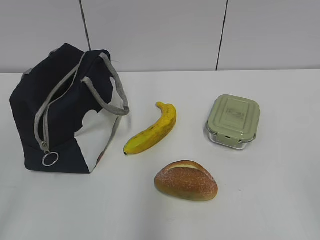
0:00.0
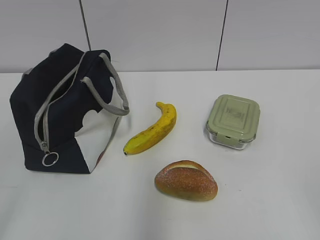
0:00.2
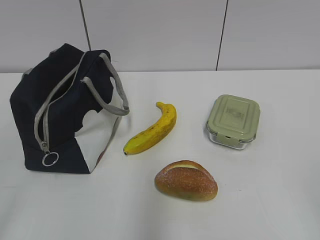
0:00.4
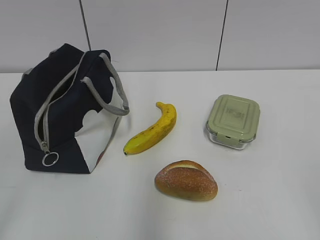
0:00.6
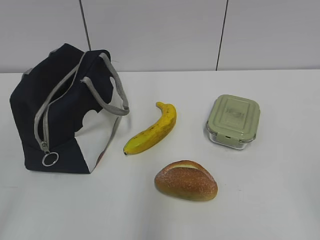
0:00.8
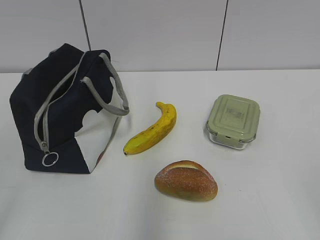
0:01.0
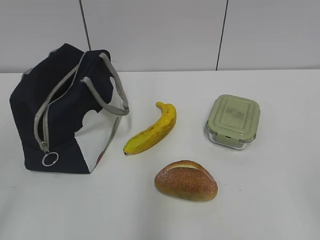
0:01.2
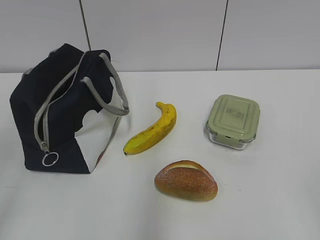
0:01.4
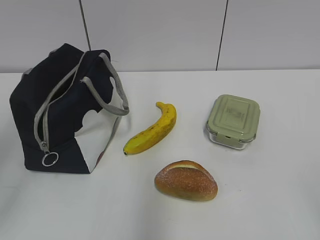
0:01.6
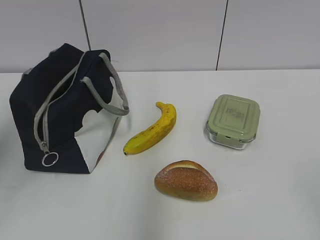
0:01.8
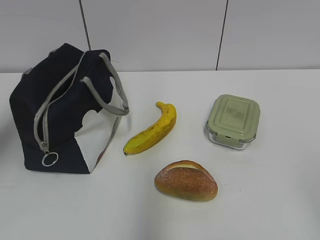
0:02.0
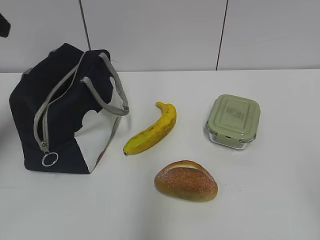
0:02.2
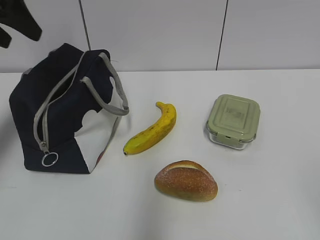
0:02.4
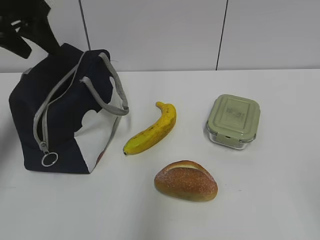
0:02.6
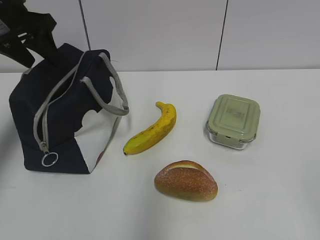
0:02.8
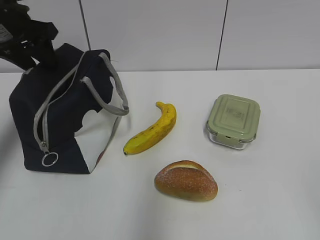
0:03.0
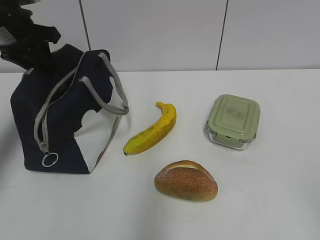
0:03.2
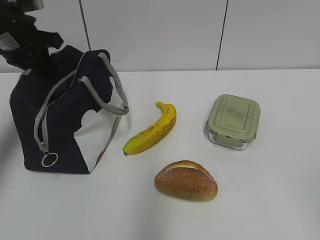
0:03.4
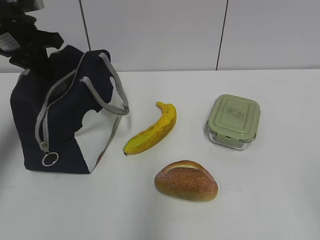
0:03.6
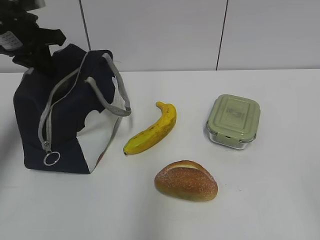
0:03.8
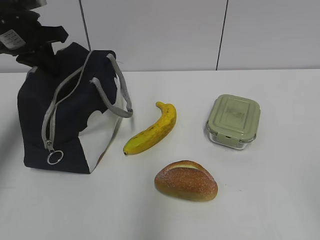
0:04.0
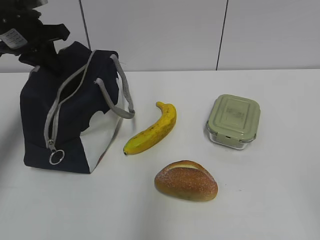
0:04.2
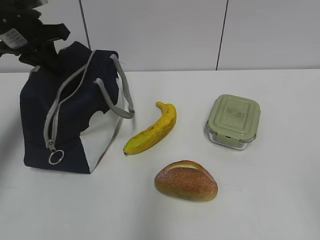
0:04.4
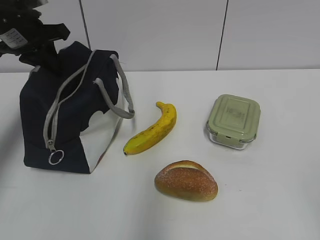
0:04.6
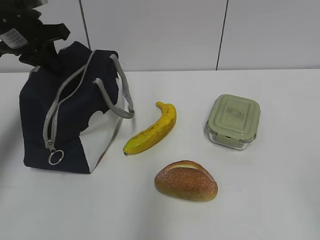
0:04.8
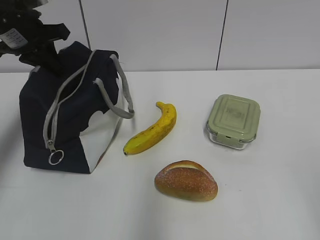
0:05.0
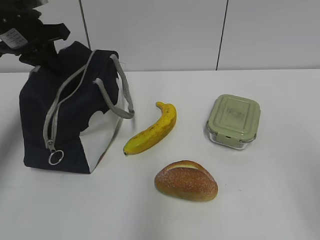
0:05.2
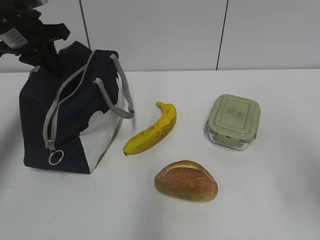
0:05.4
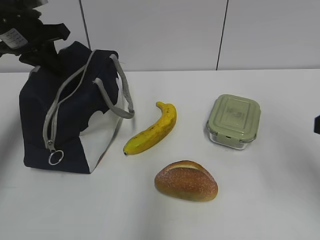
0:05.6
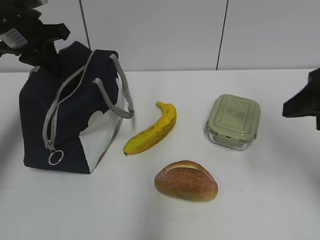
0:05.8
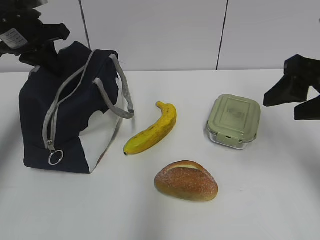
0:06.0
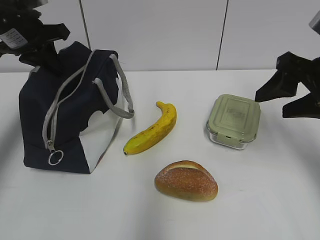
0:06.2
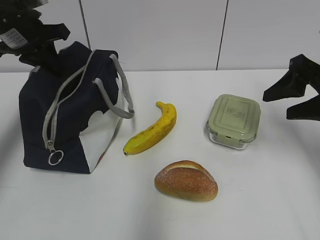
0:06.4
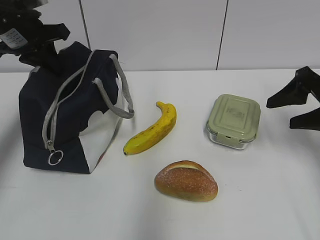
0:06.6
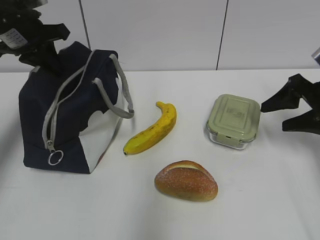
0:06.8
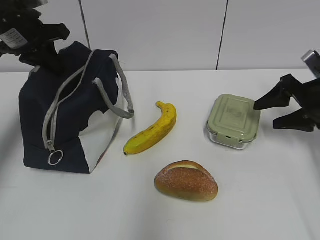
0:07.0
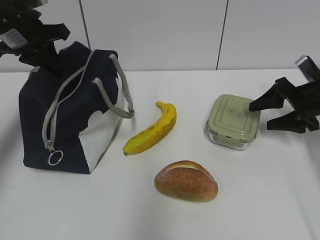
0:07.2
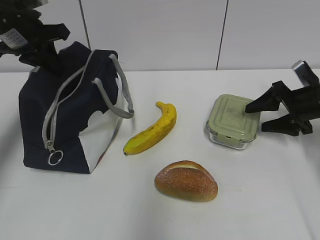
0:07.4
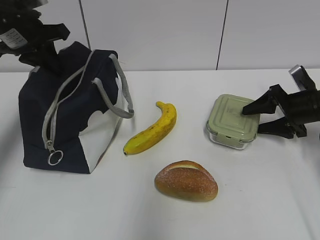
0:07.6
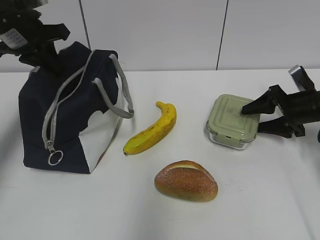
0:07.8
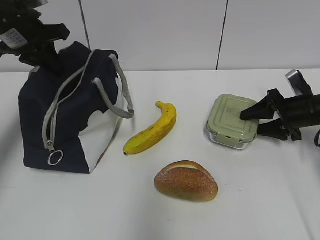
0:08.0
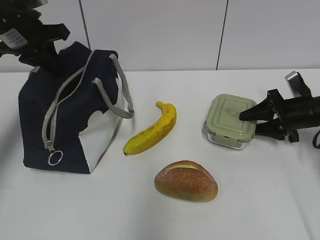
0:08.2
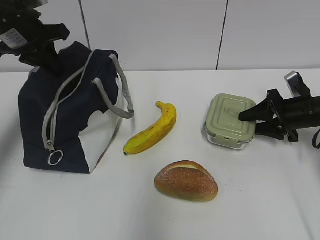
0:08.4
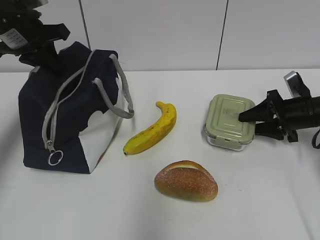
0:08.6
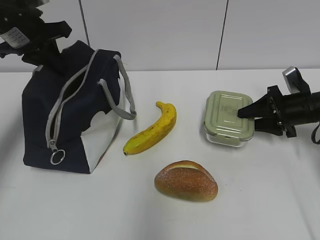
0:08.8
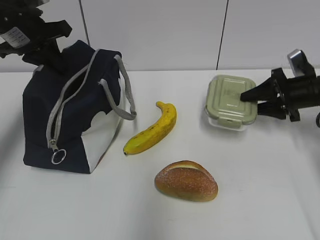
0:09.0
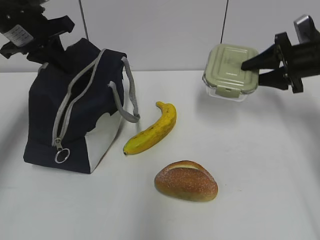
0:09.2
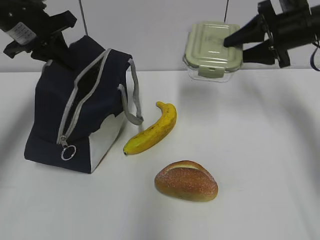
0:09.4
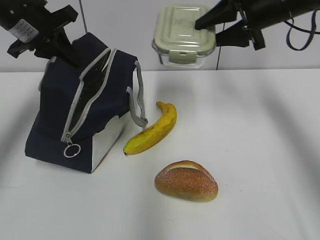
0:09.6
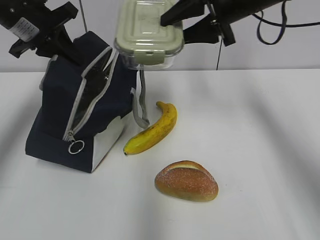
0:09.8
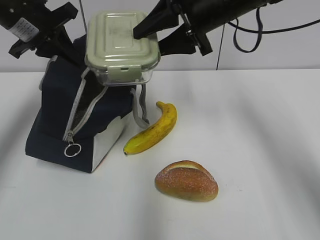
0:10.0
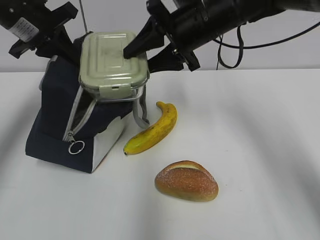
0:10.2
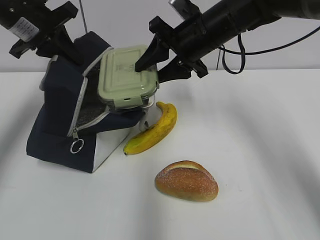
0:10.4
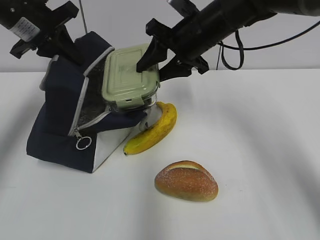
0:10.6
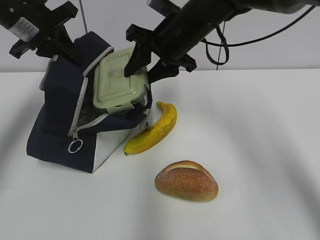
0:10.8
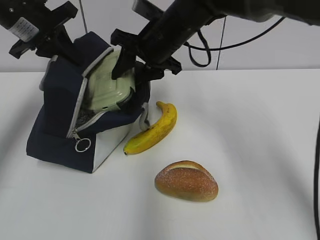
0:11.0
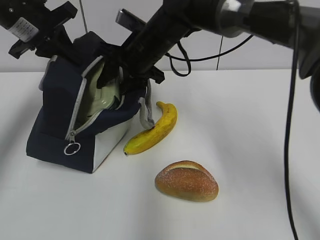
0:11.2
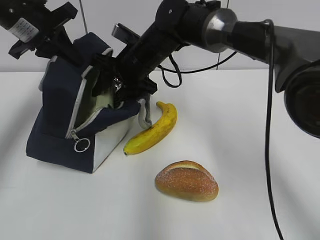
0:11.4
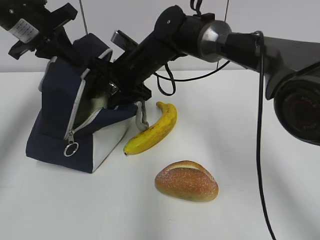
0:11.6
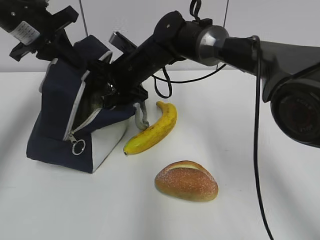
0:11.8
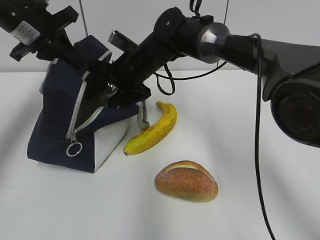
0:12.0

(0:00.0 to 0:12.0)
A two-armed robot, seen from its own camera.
0:01.6 - 0:03.0: The left gripper shifts some 30 cm forward.
0:03.0 - 0:04.4: The left gripper closes up.
0:04.4 - 0:06.0: The right gripper travels forward by about 25 cm.
0:06.0 - 0:07.6: The right gripper goes approximately 20 cm downward, forward and to the right.
0:07.6 - 0:09.0: The right gripper closes.
0:09.0 - 0:10.4: The right gripper shifts some 25 cm to the left and upward.
0:10.4 - 0:12.0: The right gripper is displaced to the left and downward by some 15 cm.

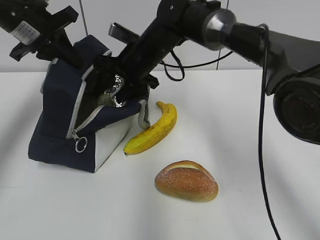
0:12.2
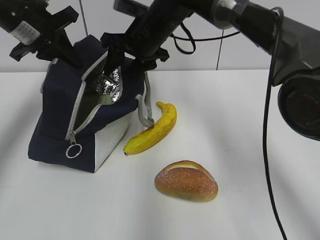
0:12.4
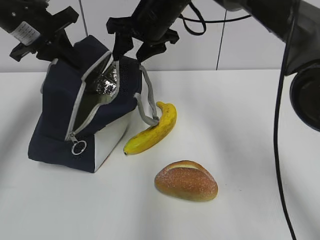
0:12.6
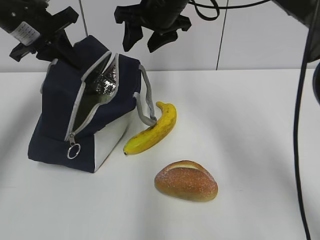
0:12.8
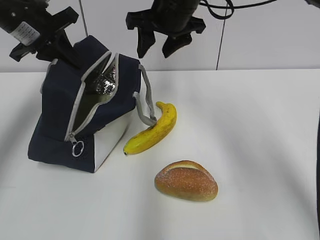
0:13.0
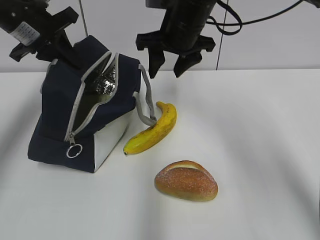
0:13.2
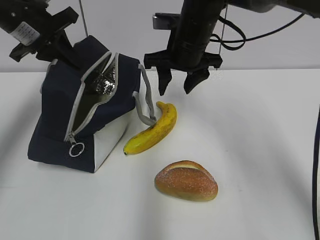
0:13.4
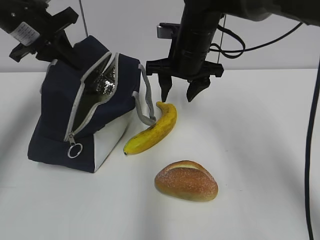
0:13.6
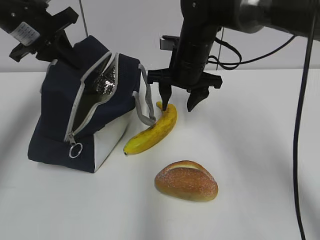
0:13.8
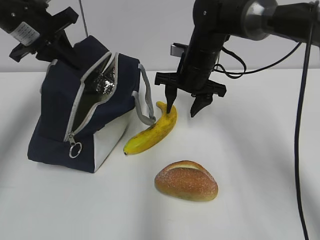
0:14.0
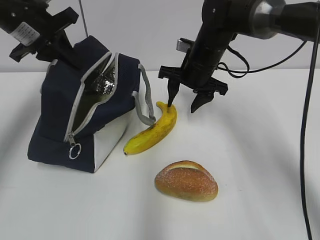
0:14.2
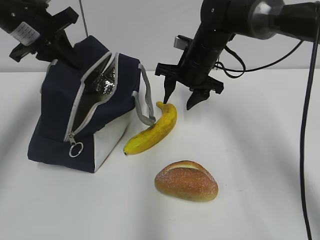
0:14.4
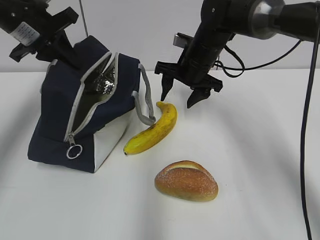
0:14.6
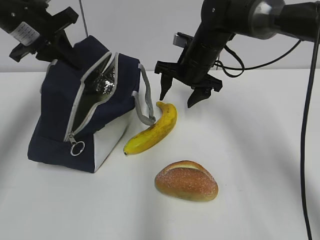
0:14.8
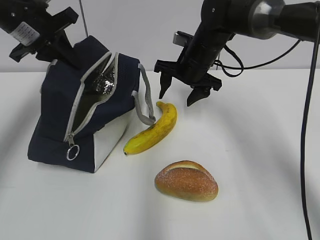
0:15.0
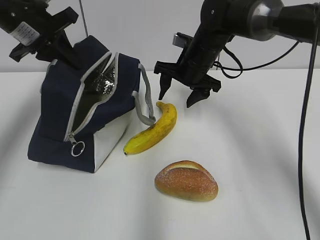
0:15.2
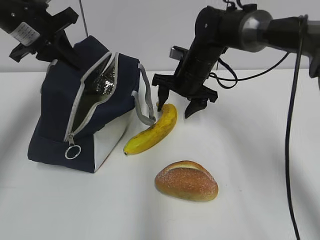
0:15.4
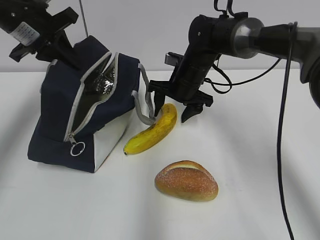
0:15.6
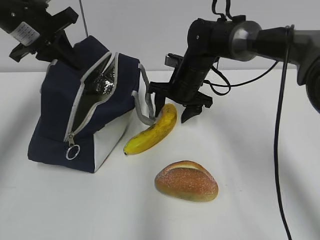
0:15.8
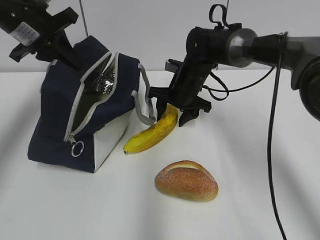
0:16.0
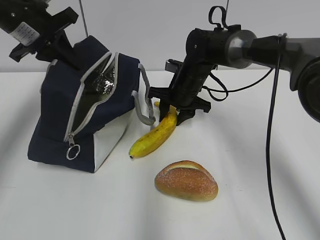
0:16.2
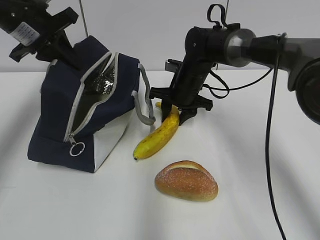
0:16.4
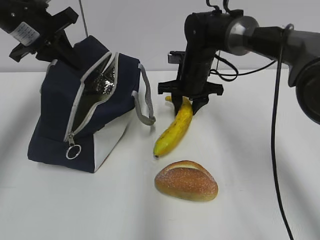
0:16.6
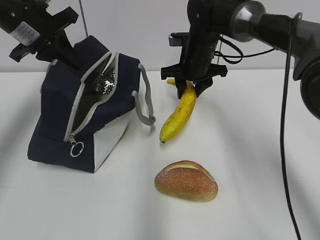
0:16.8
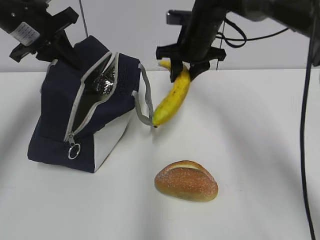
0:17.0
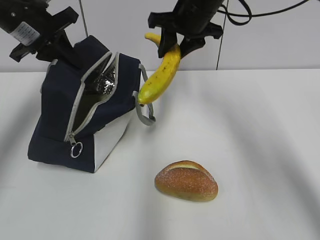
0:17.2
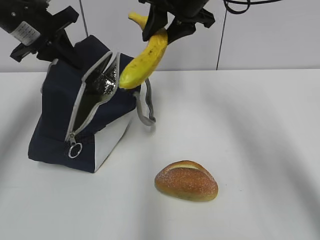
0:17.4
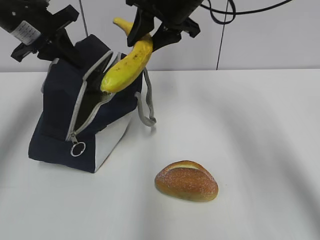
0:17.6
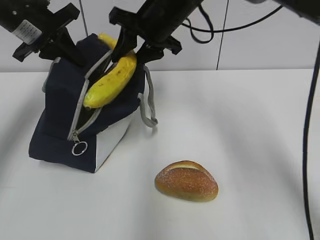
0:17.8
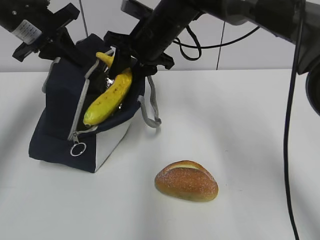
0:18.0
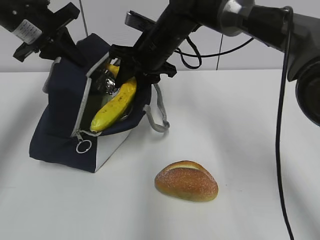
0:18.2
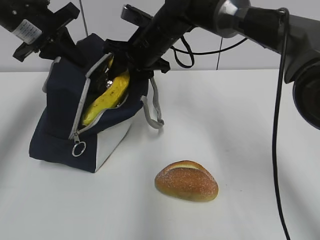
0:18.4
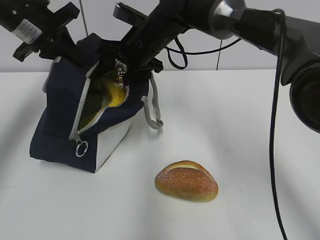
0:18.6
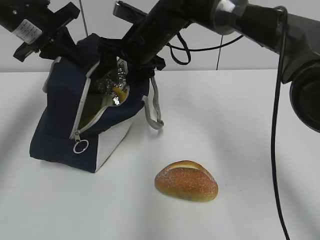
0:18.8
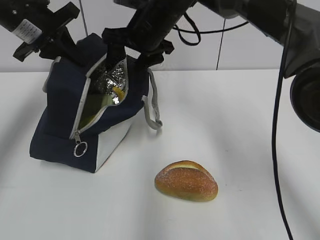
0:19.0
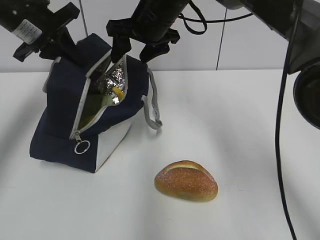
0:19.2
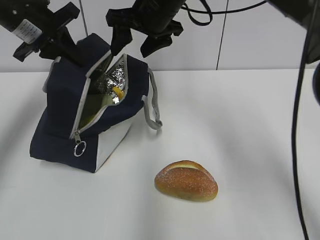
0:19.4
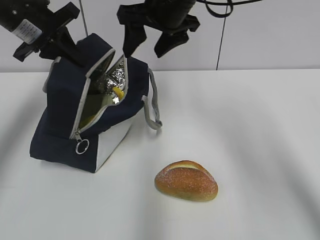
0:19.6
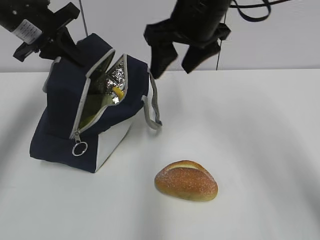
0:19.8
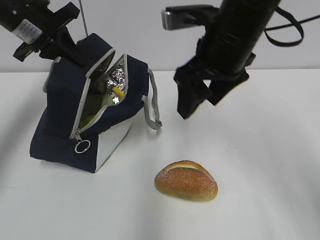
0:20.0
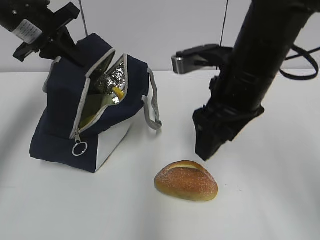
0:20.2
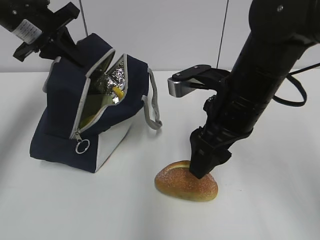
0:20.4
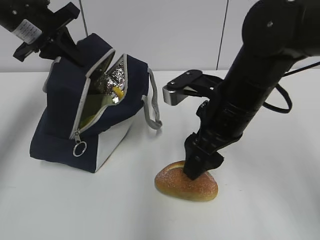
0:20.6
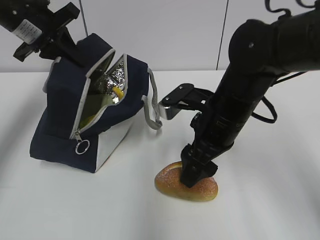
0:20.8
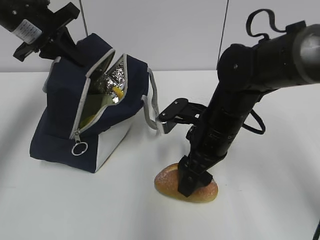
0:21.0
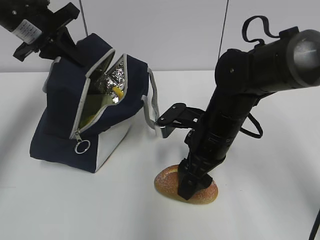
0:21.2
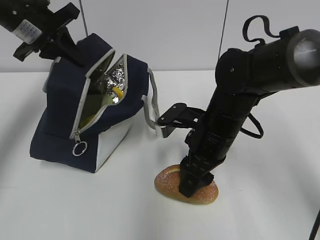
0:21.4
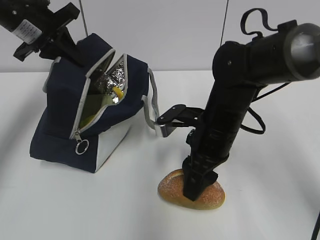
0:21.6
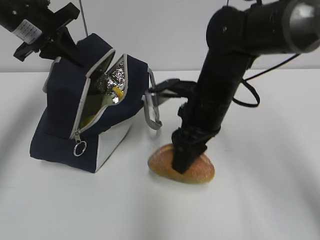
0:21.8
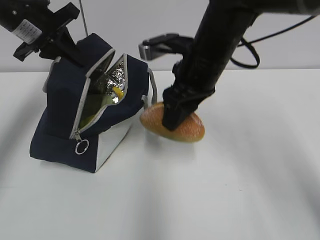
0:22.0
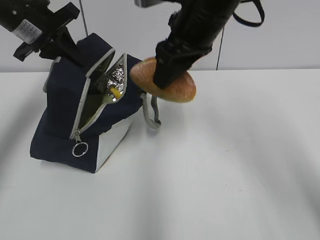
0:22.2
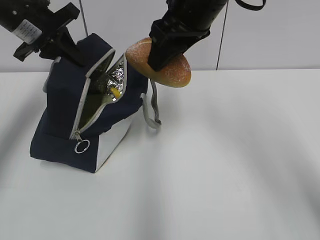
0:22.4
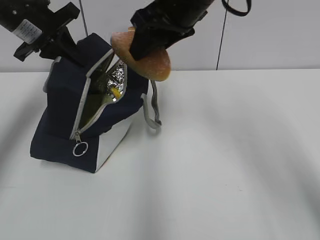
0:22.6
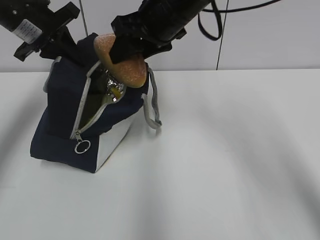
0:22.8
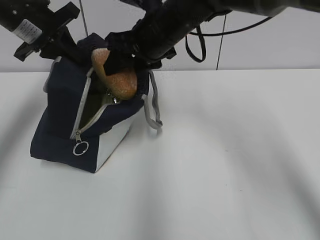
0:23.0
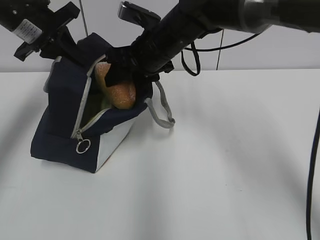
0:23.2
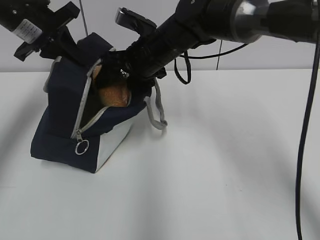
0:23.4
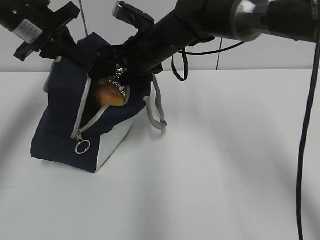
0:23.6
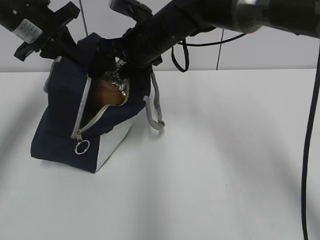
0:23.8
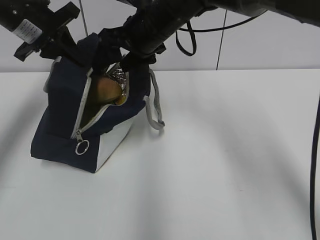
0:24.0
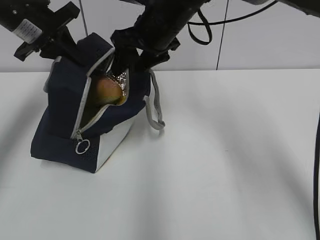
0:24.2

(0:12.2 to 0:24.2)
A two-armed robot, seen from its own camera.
0:12.2 - 0:13.8: The right gripper shifts some 10 cm to the right, and moves some 10 cm upward and comes back.
0:13.8 - 0:15.2: There are only small adjustments of the grippers.
0:15.2 - 0:16.6: The right gripper closes.
0:16.6 - 0:18.2: The right gripper moves to the left and upward, roughly 10 cm.
0:18.2 - 0:19.8: The right gripper is displaced backward, upward and to the right by approximately 15 cm, and opens its fingers.
0:19.8 - 0:21.2: The right gripper shifts about 15 cm downward.
0:21.2 - 0:22.6: The right gripper travels upward by roughly 20 cm.
0:22.6 - 0:24.2: The right gripper moves downward and forward, roughly 10 cm.
